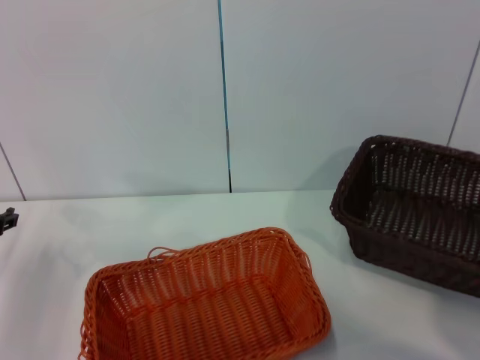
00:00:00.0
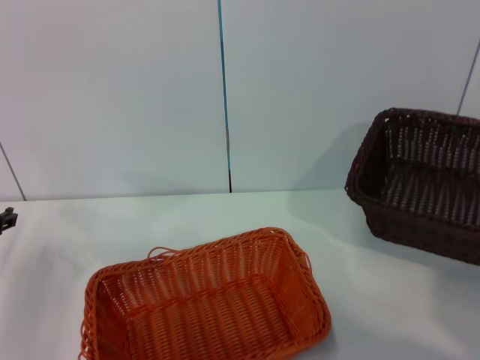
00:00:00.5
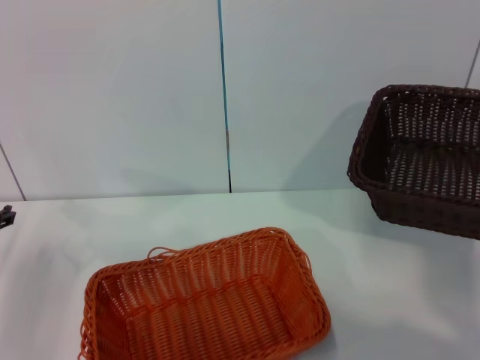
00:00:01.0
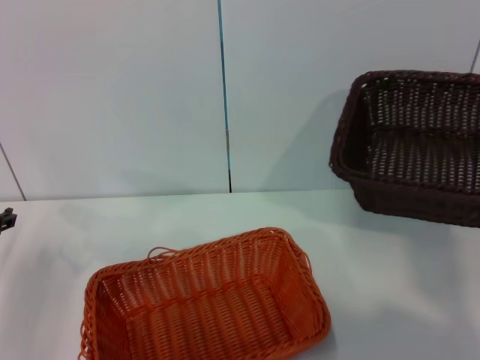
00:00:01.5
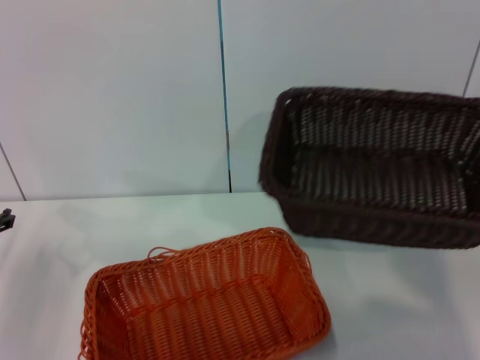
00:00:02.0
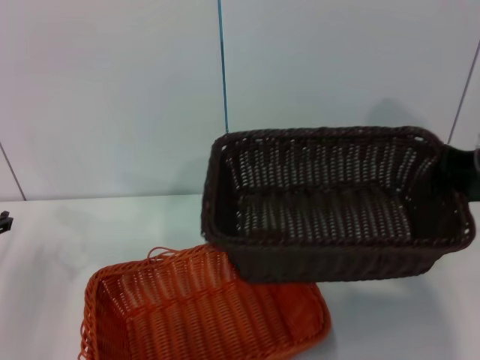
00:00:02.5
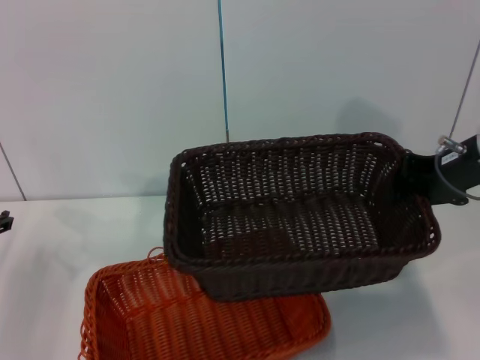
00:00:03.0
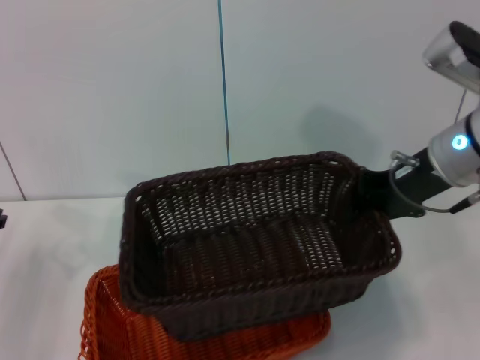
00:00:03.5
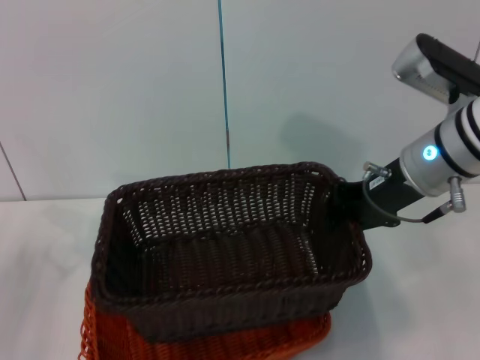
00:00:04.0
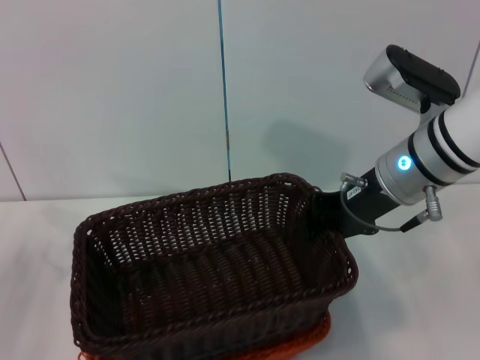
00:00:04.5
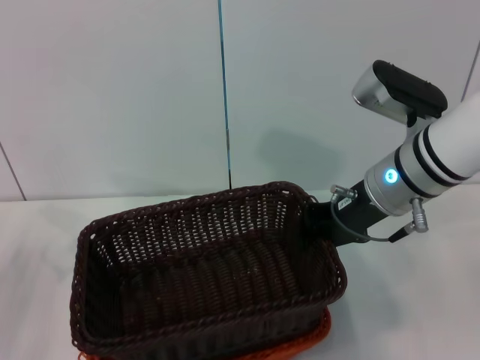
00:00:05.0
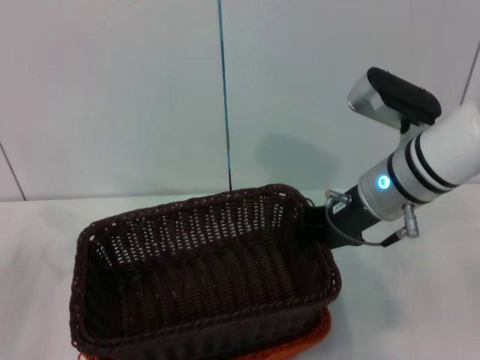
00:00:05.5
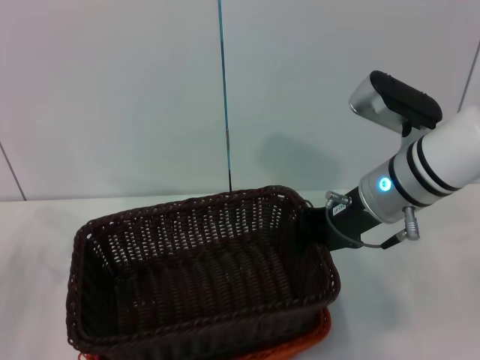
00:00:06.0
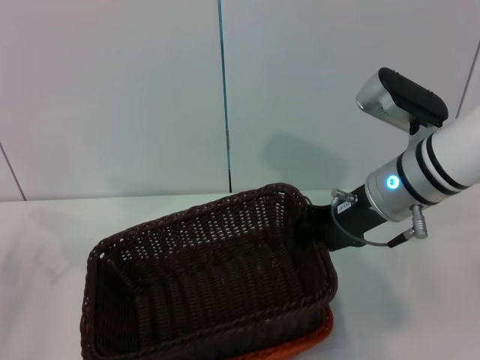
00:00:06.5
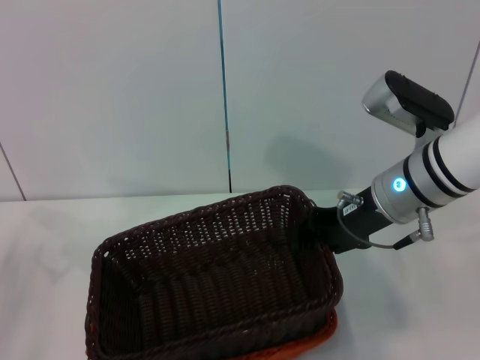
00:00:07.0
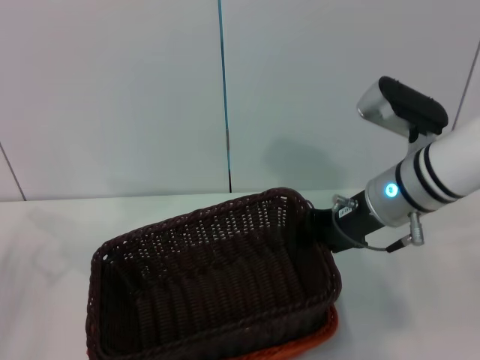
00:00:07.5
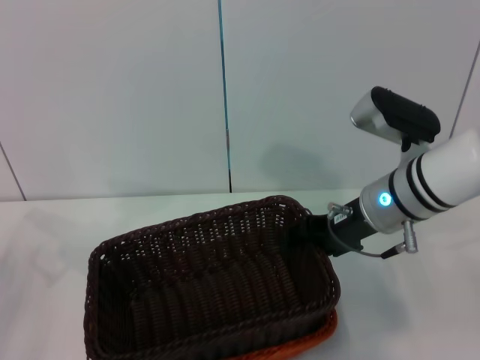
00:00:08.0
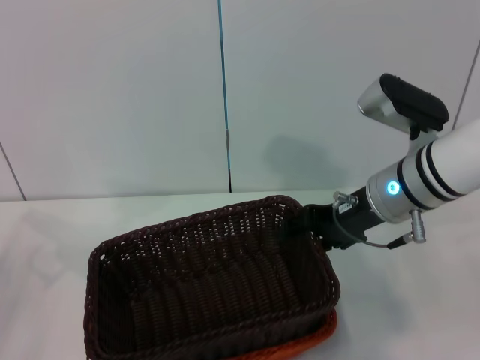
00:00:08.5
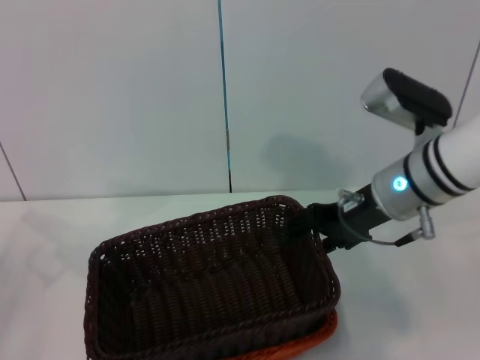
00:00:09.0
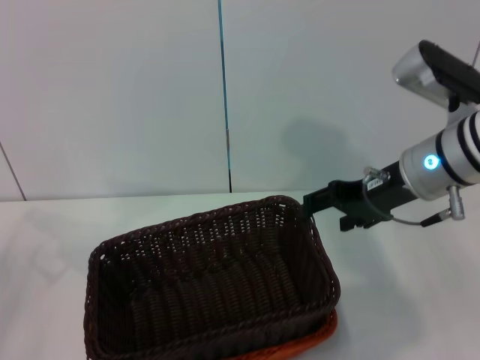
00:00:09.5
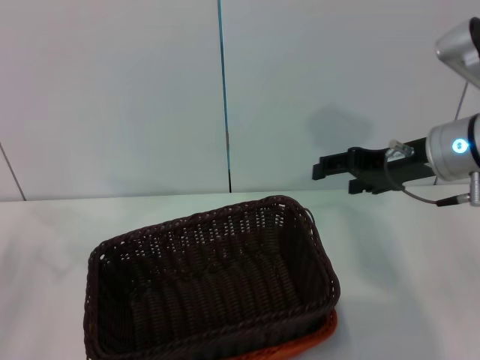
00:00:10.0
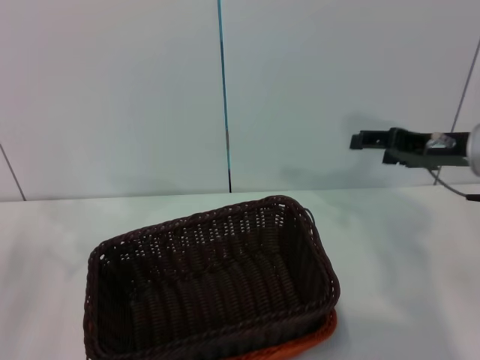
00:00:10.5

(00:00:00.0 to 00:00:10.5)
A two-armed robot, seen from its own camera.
Step, 00:00:01.0 - 00:00:07.5: Place the dark basket on the light basket with the right gripper.
00:00:00.0 - 00:00:02.0: The right gripper heads upward and to the left, covering roughly 10 cm.
00:00:02.0 - 00:00:04.0: The right gripper shifts about 15 cm to the left.
00:00:04.0 - 00:00:06.5: The grippers make only small movements.
00:00:06.5 - 00:00:08.5: The right gripper opens up.
00:00:08.5 - 00:00:10.5: The right gripper moves to the right, about 10 cm.

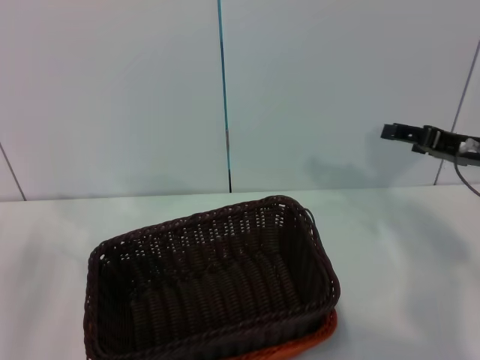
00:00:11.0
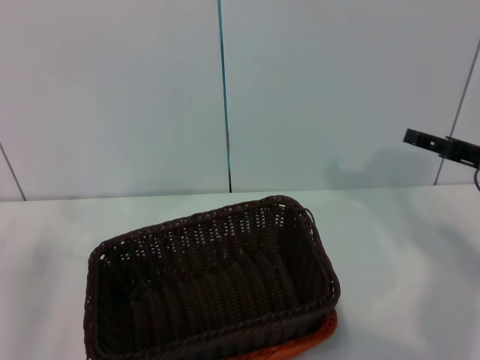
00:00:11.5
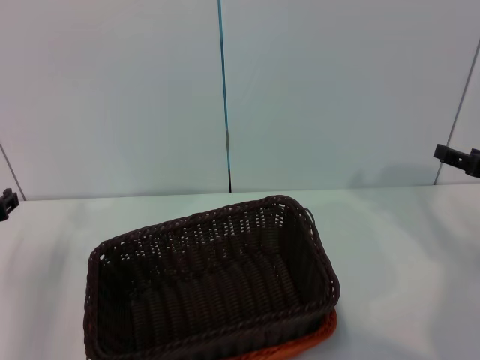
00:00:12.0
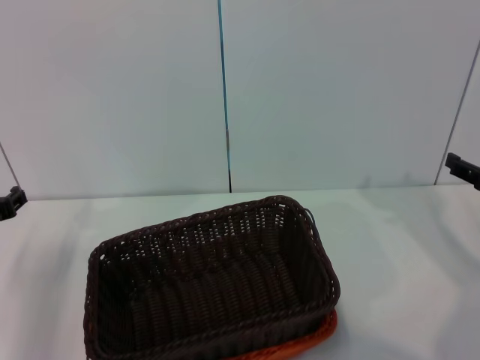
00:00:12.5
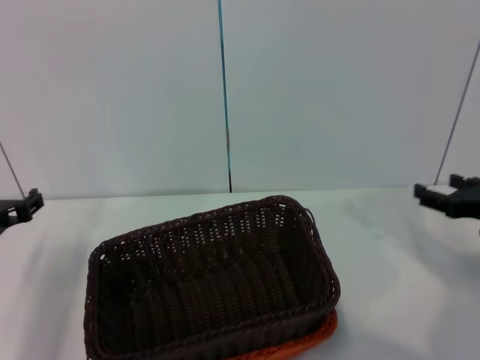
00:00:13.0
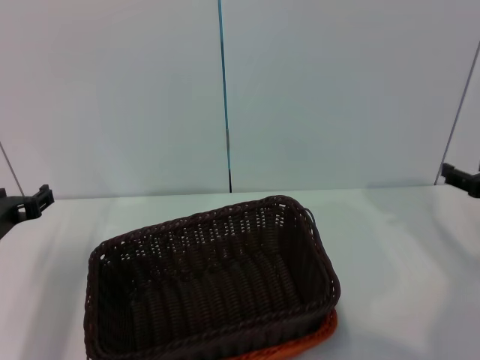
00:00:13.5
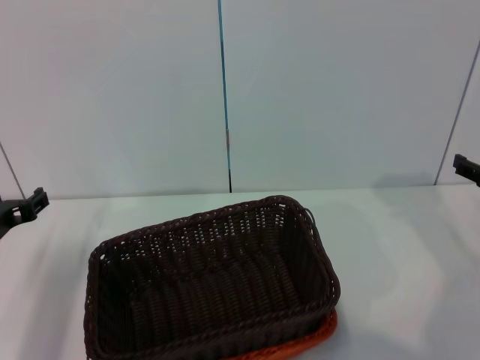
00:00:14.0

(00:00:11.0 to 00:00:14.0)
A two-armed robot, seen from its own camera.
00:00:11.0 - 00:00:12.5: The right gripper is displaced downward and to the right by roughly 10 cm.
00:00:12.5 - 00:00:14.0: The grippers make only small movements.
